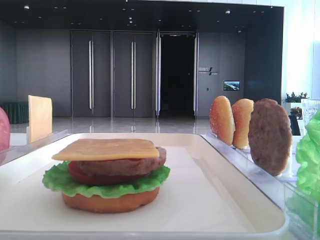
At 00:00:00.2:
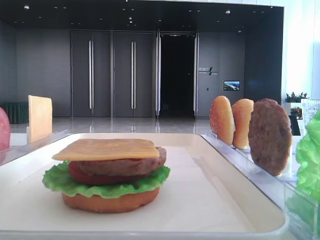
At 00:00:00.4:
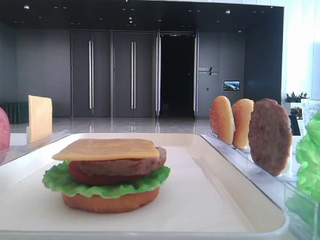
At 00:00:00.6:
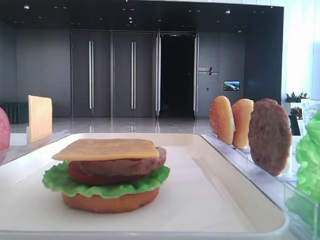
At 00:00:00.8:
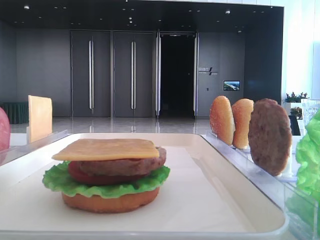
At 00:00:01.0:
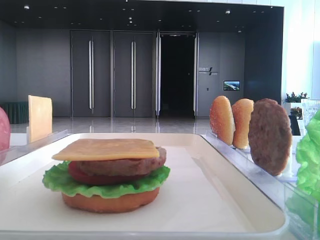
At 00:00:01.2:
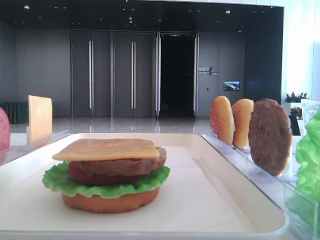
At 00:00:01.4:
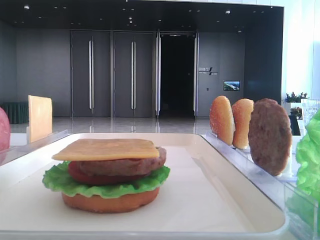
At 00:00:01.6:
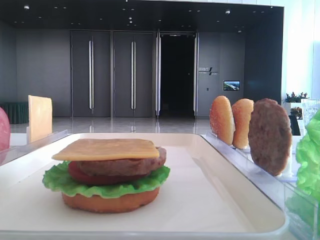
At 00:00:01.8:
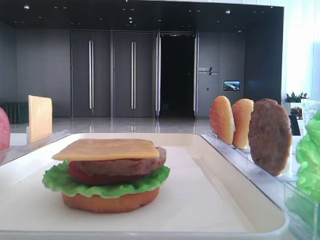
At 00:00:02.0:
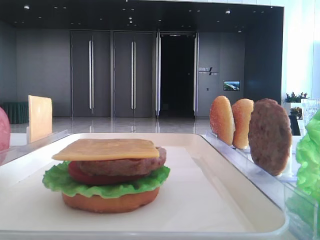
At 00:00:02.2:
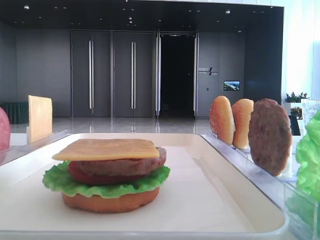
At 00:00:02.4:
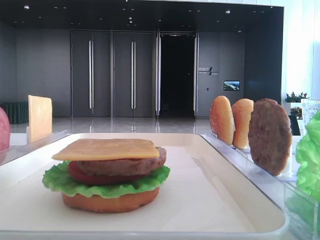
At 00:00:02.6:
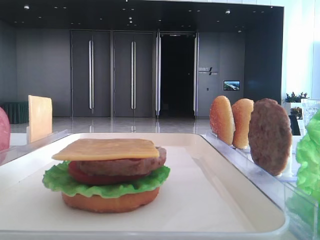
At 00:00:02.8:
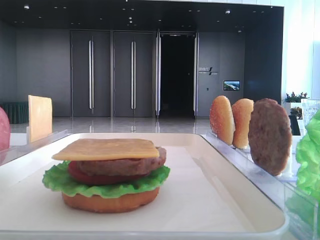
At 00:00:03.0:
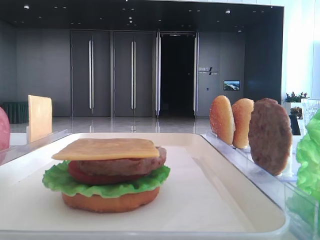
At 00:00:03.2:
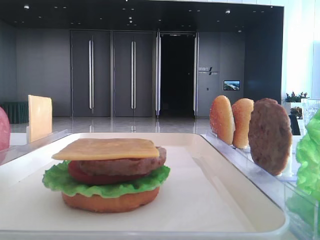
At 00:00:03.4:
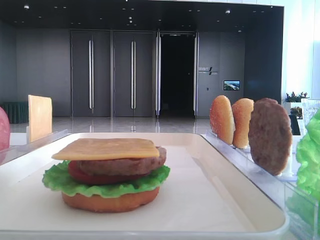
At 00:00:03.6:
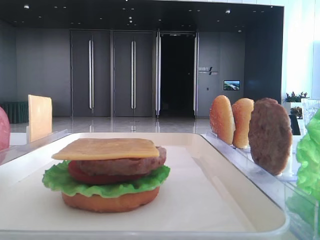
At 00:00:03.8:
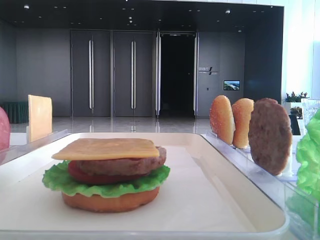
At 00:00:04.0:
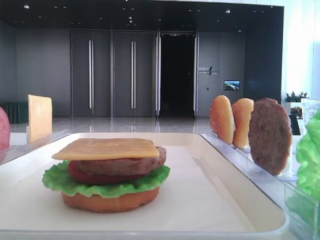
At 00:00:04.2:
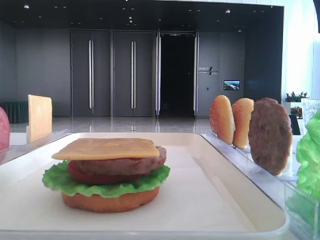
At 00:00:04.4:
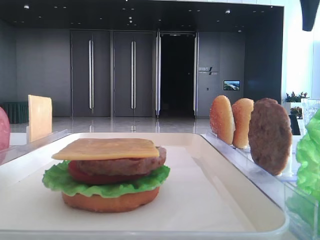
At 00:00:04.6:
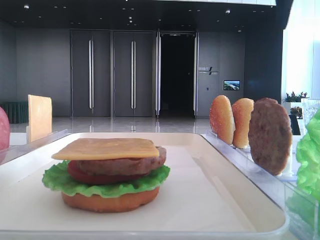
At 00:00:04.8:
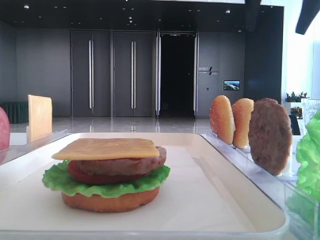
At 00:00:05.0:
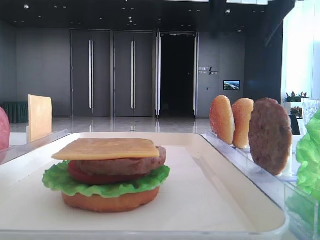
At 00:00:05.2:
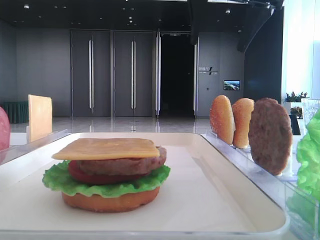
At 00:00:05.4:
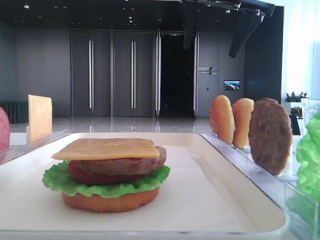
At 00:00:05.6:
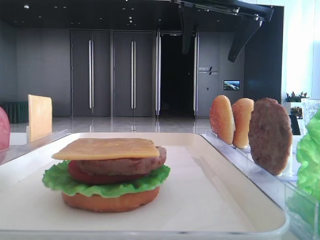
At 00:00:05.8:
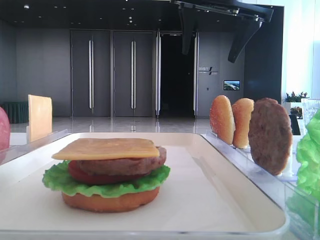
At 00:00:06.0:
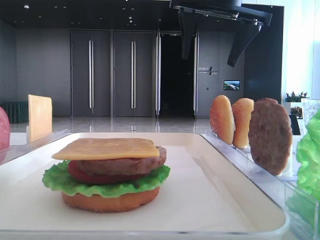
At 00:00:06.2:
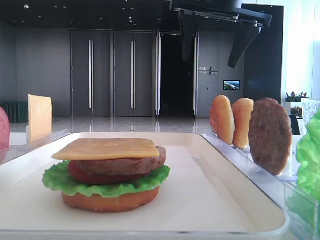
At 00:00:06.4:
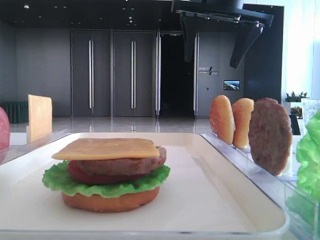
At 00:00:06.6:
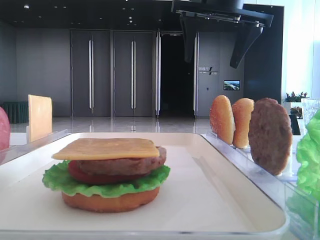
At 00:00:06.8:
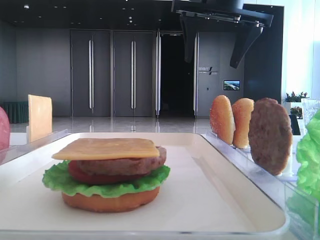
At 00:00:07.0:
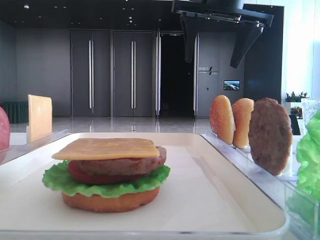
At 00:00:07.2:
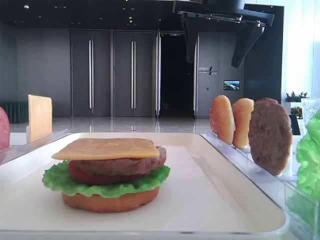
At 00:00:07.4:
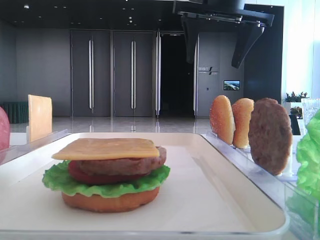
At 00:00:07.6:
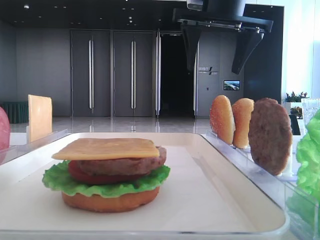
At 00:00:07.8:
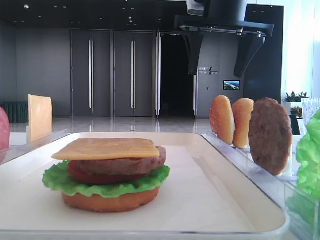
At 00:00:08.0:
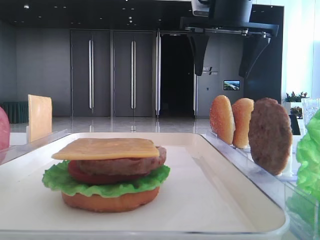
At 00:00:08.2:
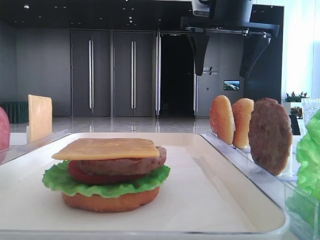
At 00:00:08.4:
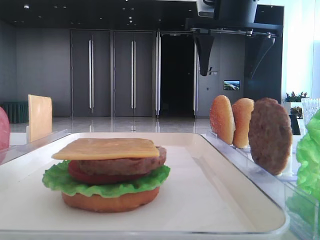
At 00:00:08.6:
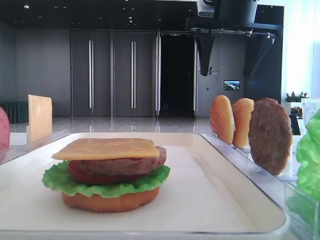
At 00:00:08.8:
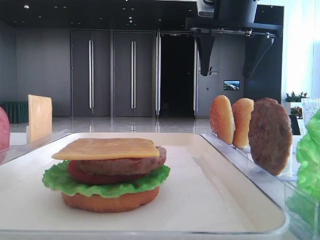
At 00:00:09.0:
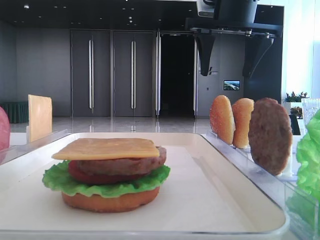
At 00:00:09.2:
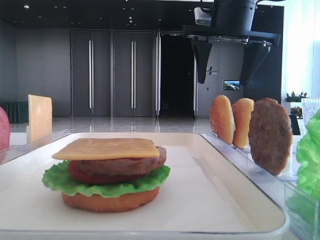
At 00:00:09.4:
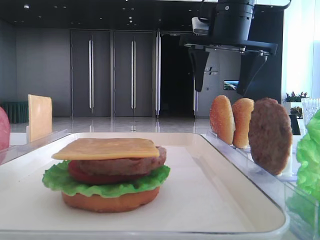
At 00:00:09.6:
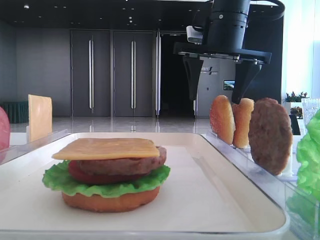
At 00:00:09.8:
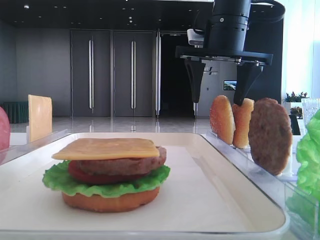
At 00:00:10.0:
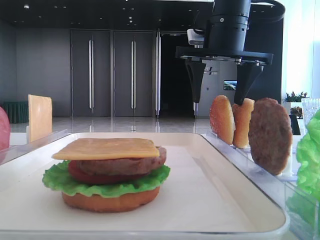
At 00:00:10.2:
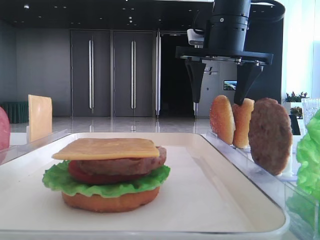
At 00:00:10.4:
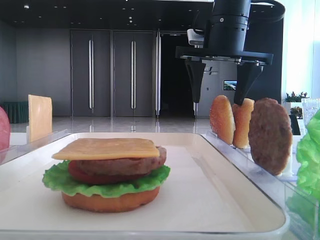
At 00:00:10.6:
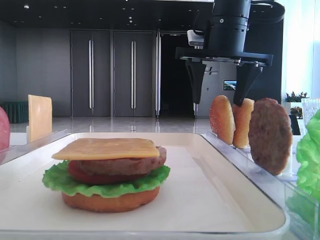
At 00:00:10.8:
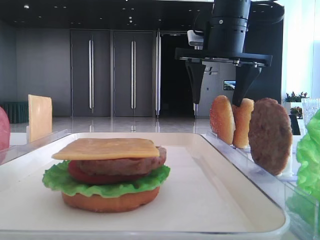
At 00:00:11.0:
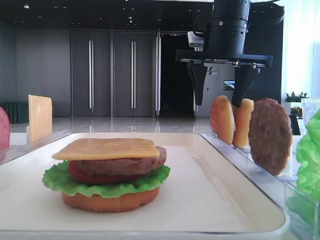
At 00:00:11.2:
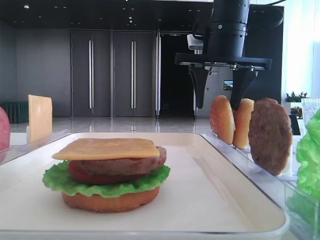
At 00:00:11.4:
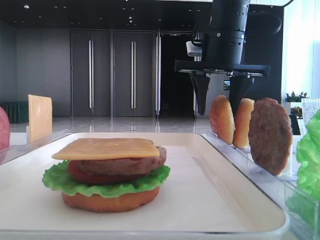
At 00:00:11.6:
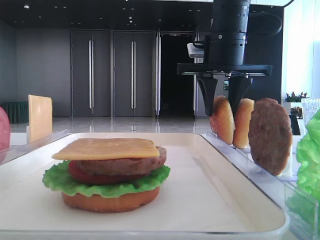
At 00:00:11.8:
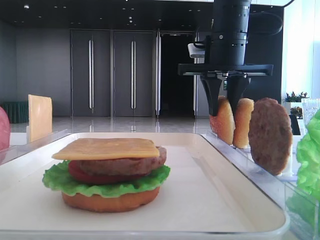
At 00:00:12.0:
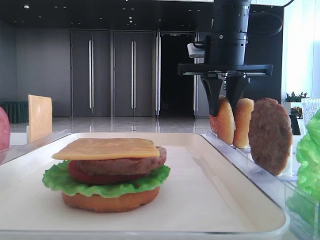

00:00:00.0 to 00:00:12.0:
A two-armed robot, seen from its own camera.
00:00:04.4 to 00:00:06.0: The right gripper travels to the left by some 15 cm.
00:00:06.0 to 00:00:09.0: The grippers move only a little.
00:00:09.0 to 00:00:10.4: The grippers make only small movements.
00:00:10.4 to 00:00:12.0: The right gripper closes up.

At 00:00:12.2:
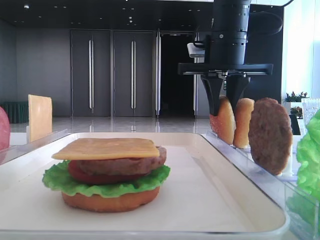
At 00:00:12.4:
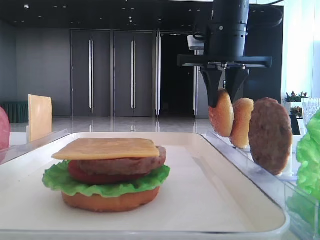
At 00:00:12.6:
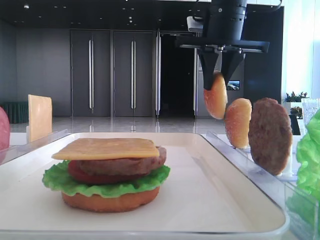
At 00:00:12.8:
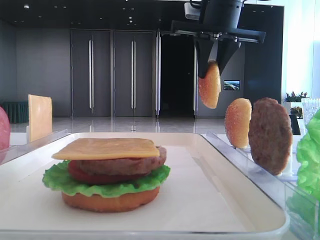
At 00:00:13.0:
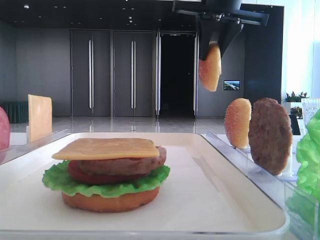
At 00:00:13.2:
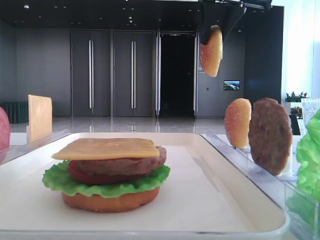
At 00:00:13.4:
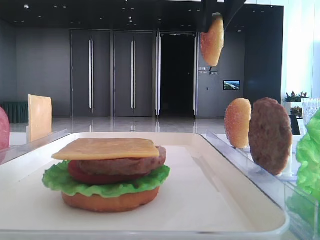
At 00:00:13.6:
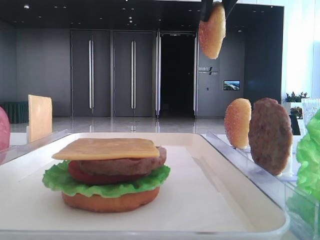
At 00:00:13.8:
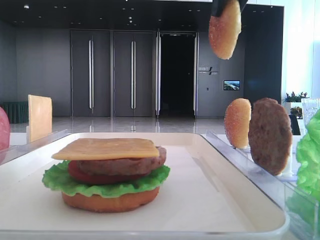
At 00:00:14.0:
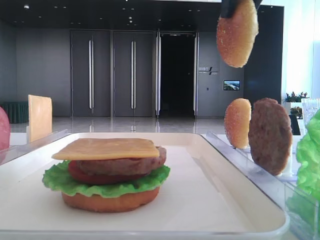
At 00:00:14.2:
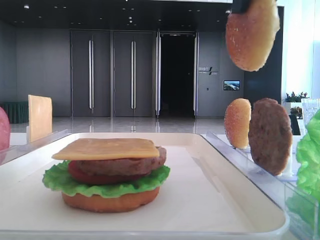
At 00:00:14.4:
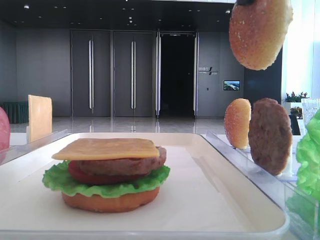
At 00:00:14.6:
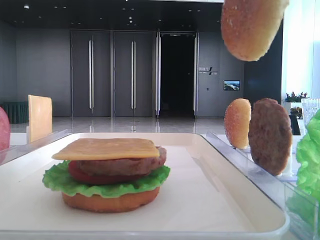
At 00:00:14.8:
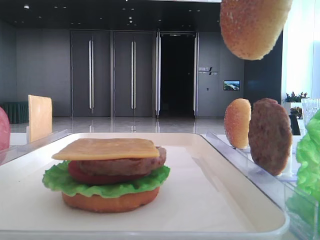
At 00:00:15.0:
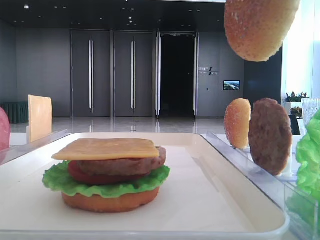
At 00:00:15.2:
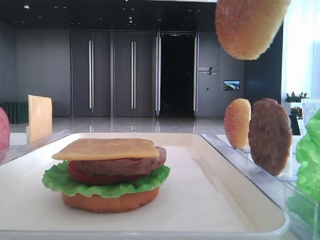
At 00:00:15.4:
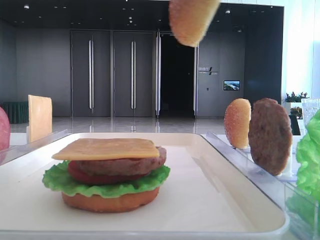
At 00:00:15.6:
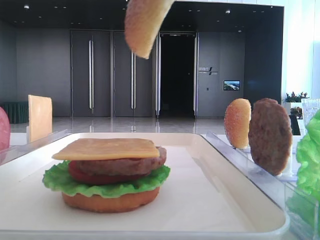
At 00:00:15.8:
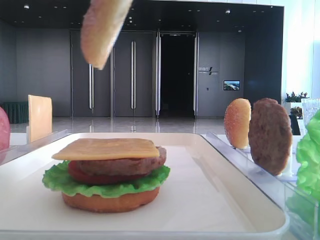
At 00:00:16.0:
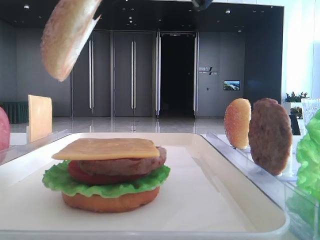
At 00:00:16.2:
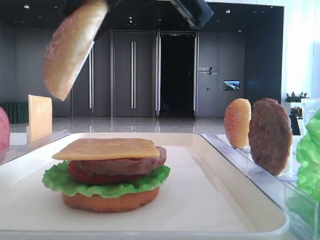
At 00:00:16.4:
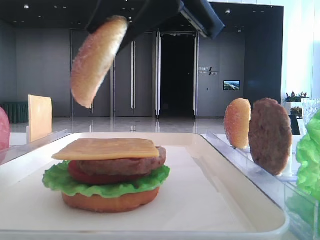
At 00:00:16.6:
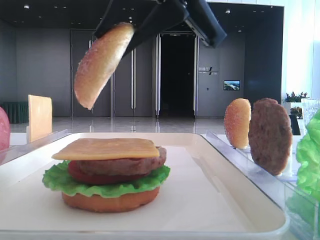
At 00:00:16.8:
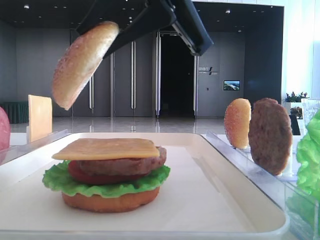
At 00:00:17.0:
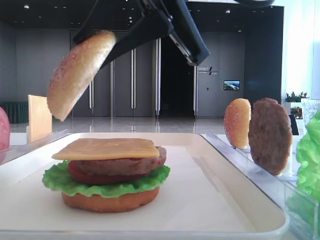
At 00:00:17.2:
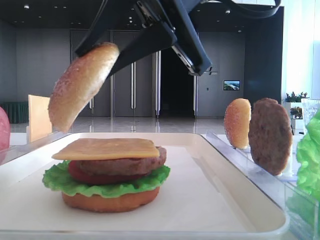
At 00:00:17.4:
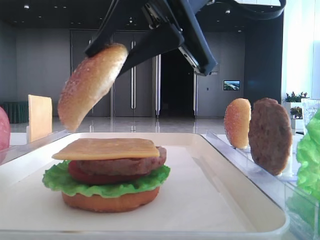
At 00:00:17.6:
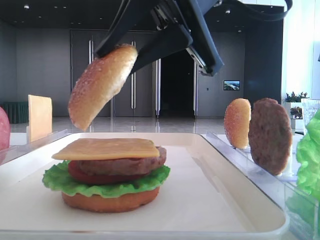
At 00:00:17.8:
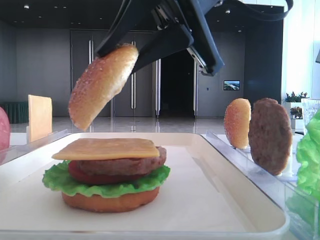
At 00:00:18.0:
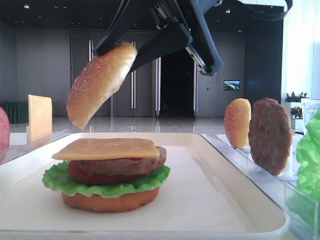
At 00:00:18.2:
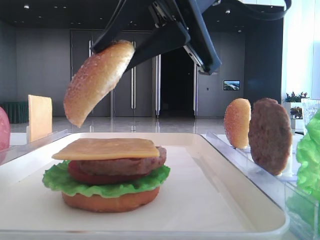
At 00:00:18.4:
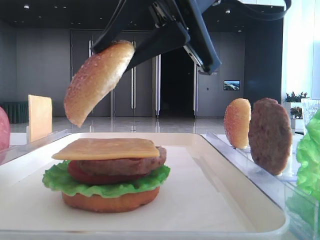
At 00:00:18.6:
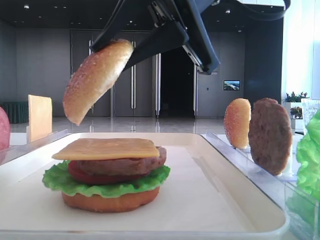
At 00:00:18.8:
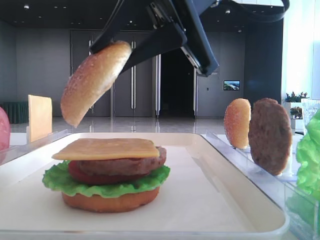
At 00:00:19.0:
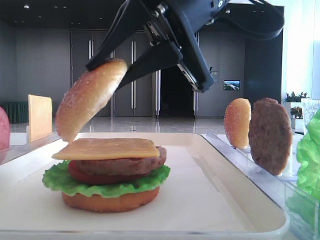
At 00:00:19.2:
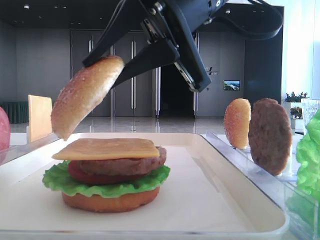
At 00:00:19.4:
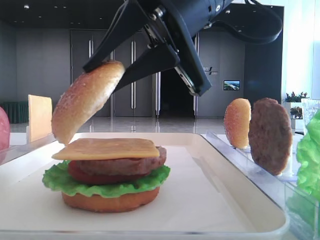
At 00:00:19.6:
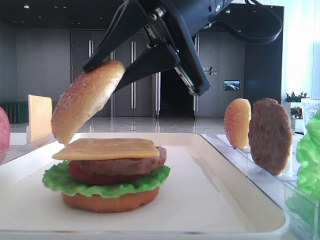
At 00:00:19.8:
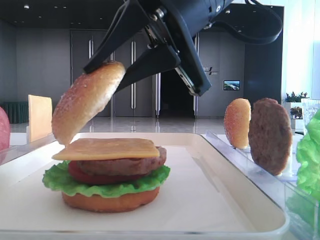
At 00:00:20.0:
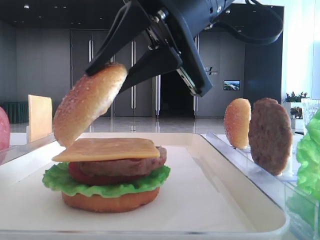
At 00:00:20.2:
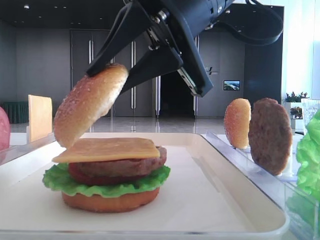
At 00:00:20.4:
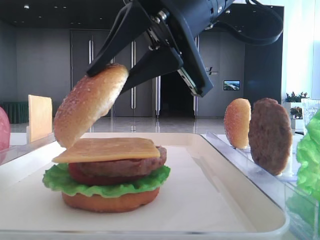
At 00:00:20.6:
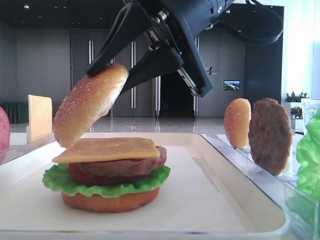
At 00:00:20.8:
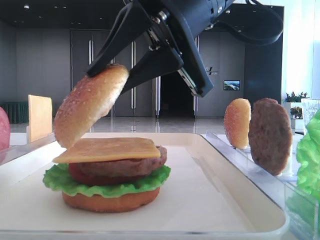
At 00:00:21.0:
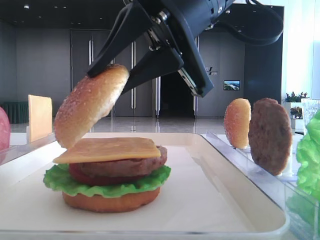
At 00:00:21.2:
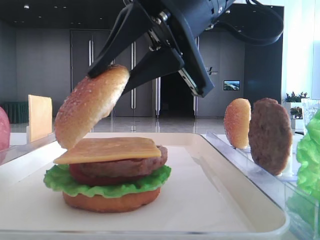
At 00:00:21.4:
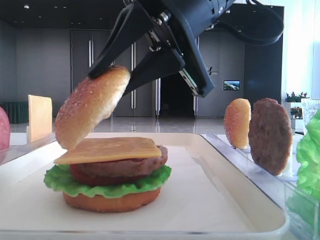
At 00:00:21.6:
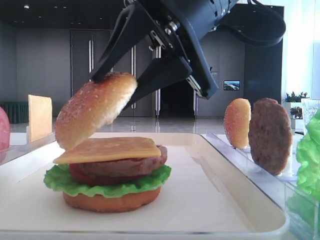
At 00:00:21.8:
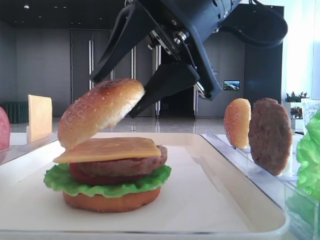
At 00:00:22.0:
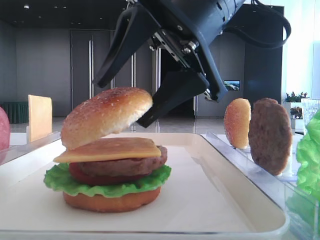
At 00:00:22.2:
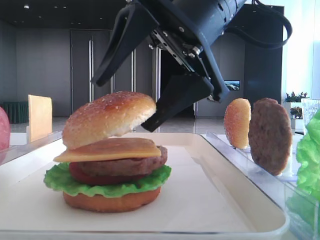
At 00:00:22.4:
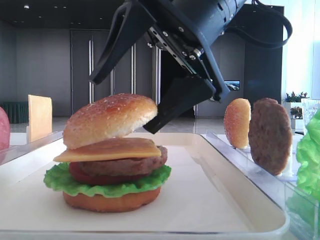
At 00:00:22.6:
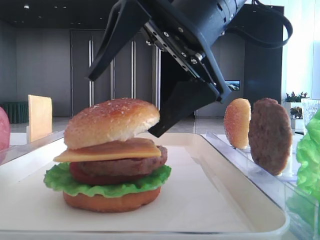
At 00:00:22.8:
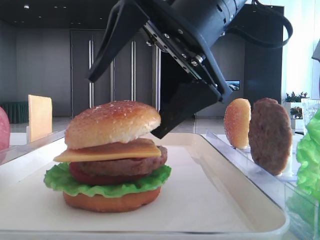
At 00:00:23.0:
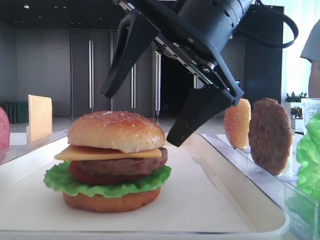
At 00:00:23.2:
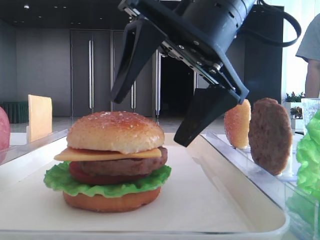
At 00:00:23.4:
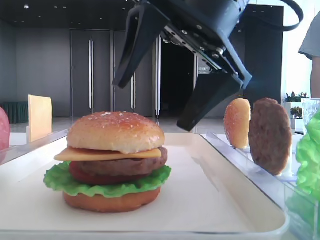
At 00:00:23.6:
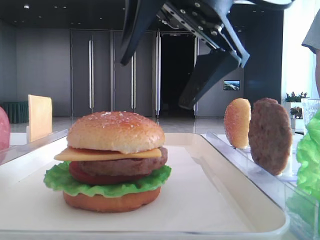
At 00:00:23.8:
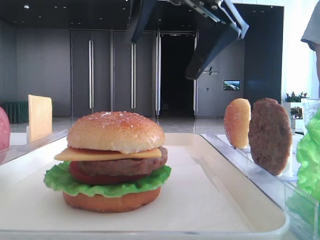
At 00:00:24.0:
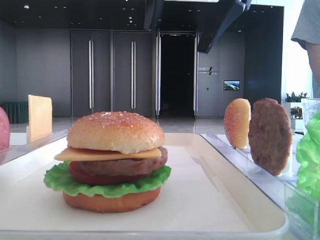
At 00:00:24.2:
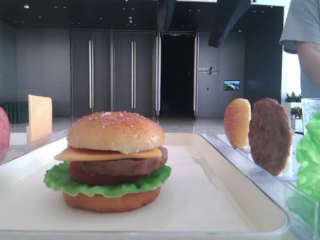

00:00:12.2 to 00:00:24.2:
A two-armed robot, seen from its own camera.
Step, 00:00:12.2 to 00:00:22.8: Place the top bread slice on the cheese with the right hand.
00:00:12.2 to 00:00:13.8: The right gripper goes roughly 15 cm upward and backward.
00:00:13.8 to 00:00:15.2: The right gripper moves backward, roughly 15 cm.
00:00:15.2 to 00:00:16.6: The right gripper is displaced forward, downward and to the left by about 10 cm.
00:00:16.6 to 00:00:19.8: The grippers make only small movements.
00:00:19.8 to 00:00:21.2: Both grippers stay put.
00:00:21.2 to 00:00:22.6: The right gripper opens up.
00:00:22.6 to 00:00:24.2: The right gripper moves upward, approximately 10 cm.
